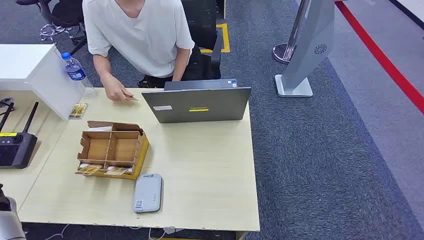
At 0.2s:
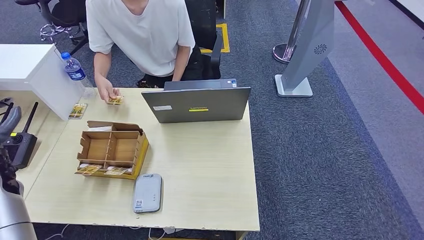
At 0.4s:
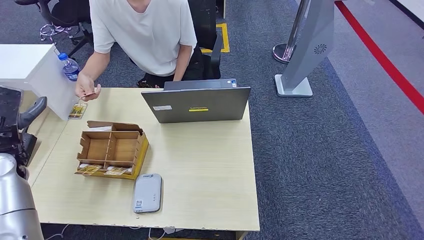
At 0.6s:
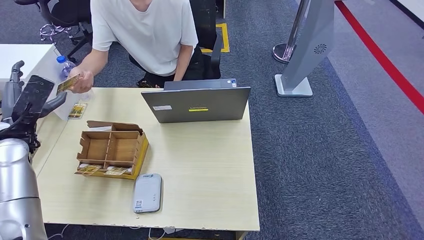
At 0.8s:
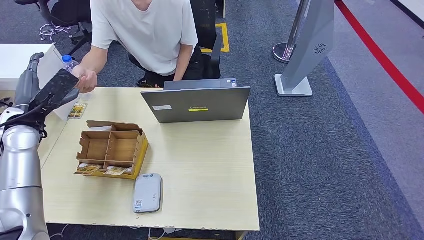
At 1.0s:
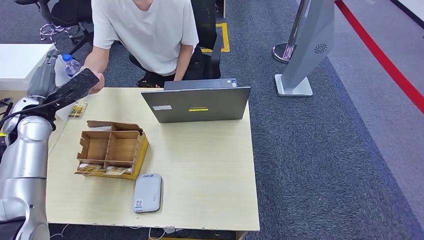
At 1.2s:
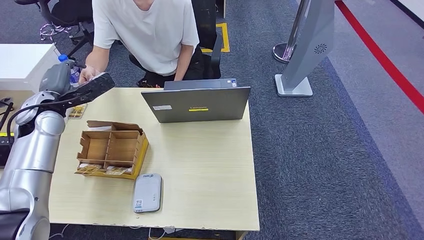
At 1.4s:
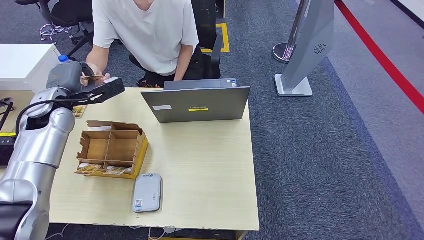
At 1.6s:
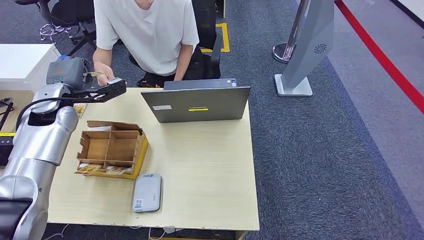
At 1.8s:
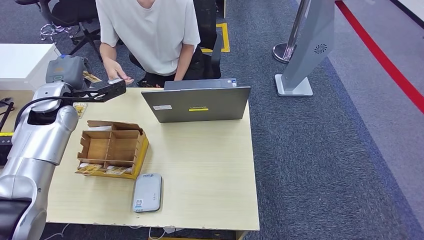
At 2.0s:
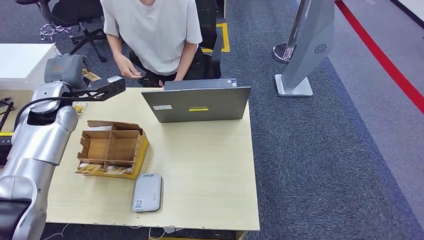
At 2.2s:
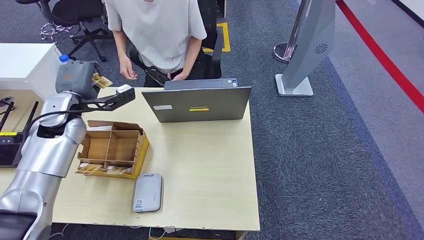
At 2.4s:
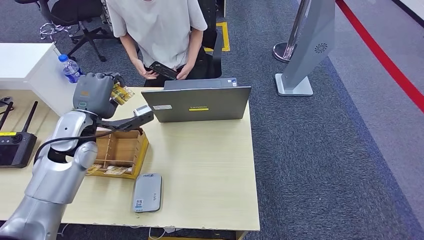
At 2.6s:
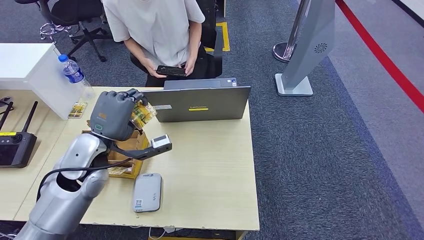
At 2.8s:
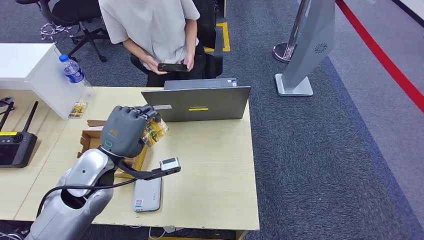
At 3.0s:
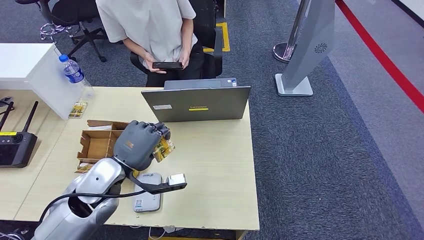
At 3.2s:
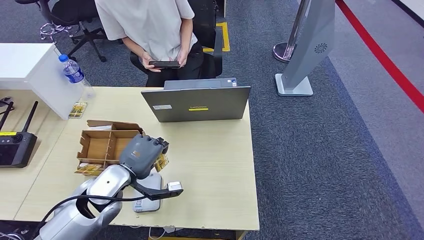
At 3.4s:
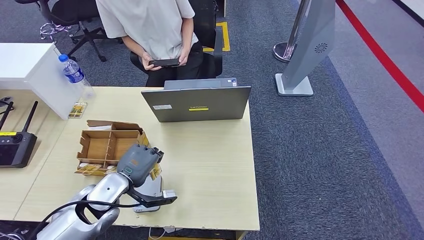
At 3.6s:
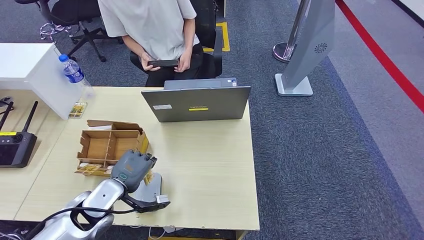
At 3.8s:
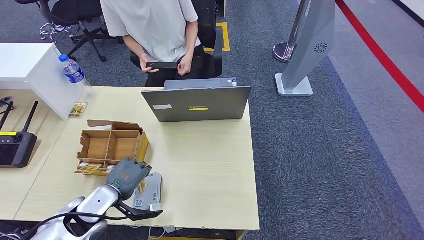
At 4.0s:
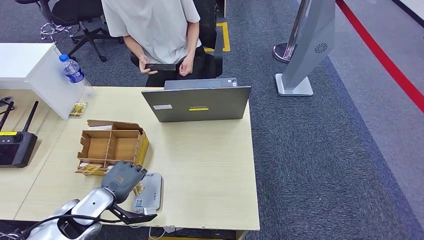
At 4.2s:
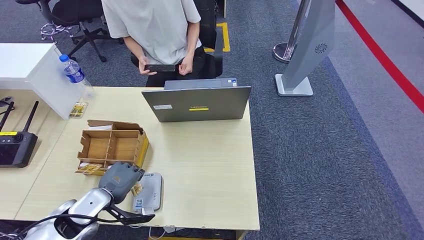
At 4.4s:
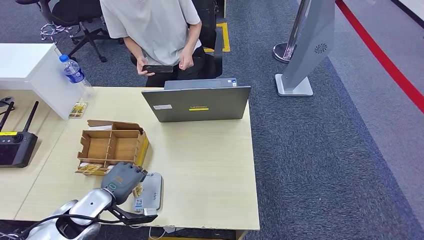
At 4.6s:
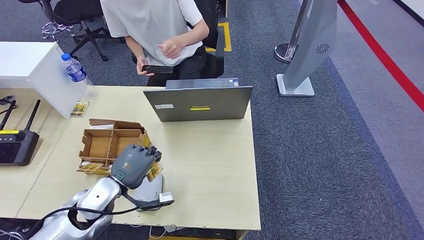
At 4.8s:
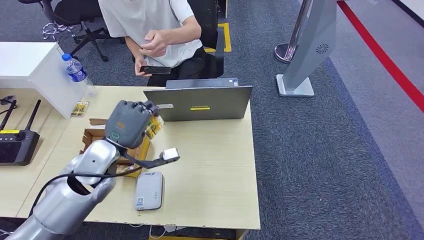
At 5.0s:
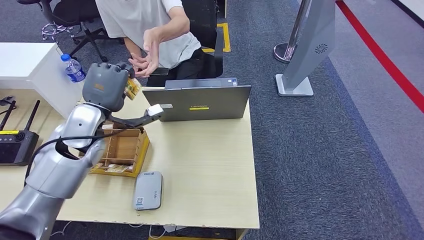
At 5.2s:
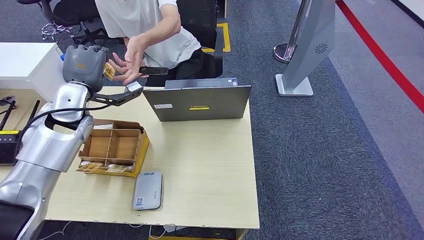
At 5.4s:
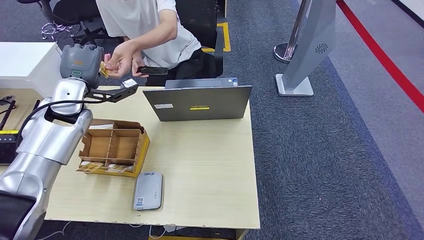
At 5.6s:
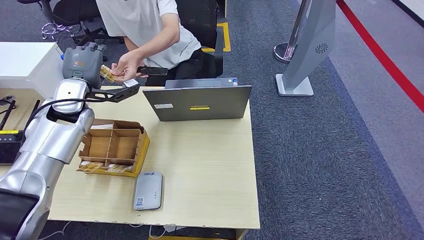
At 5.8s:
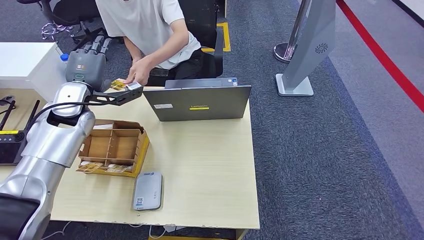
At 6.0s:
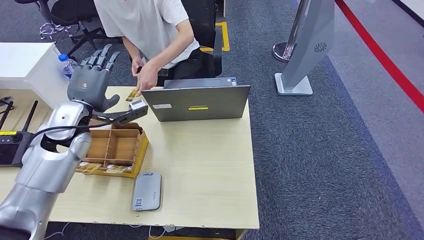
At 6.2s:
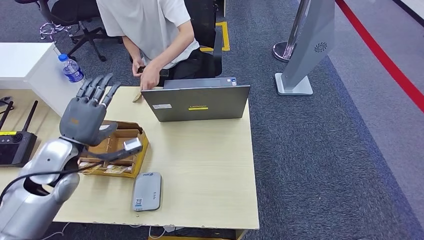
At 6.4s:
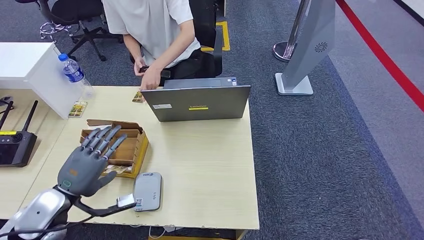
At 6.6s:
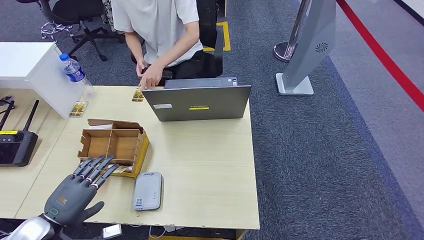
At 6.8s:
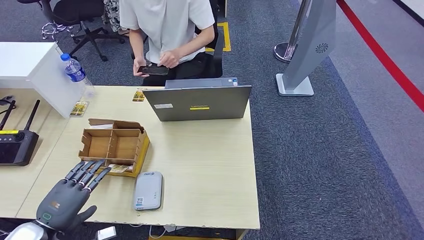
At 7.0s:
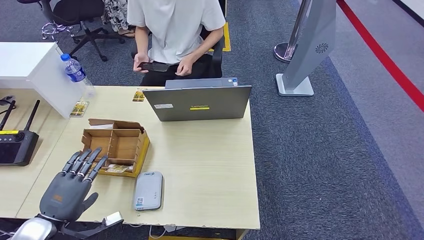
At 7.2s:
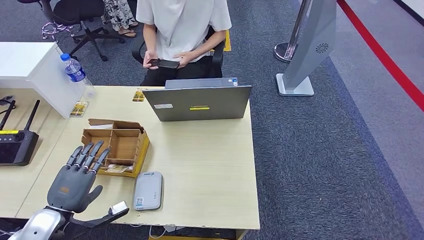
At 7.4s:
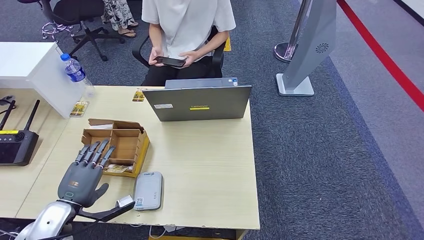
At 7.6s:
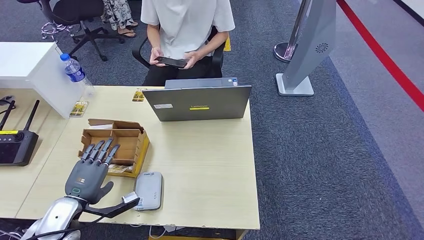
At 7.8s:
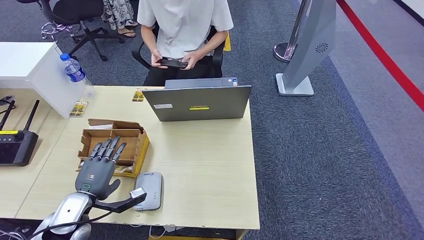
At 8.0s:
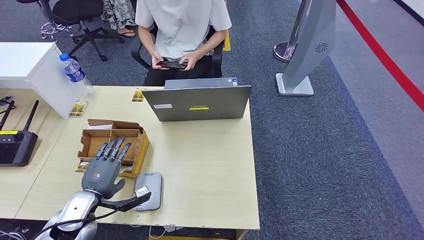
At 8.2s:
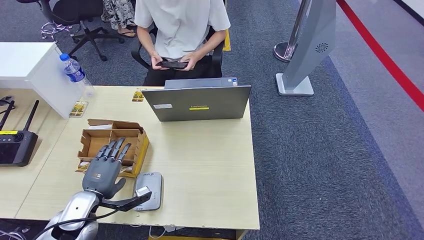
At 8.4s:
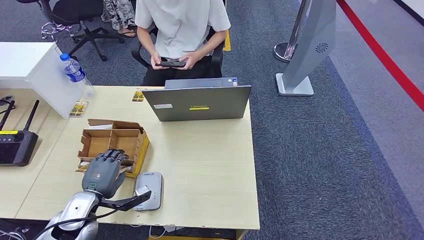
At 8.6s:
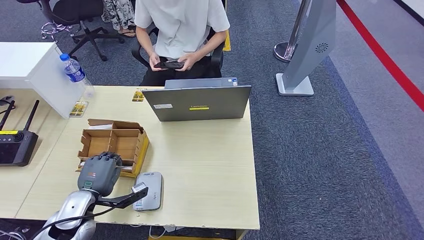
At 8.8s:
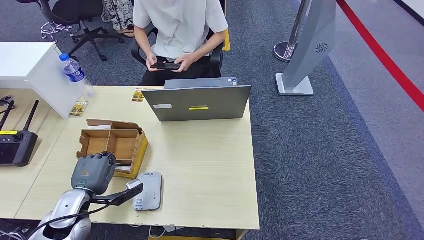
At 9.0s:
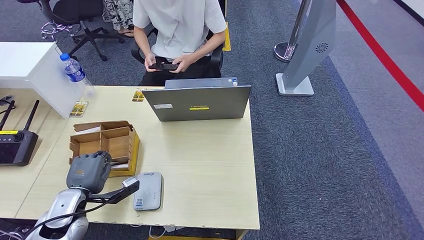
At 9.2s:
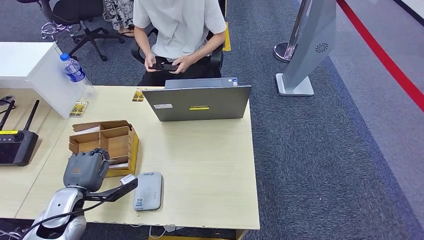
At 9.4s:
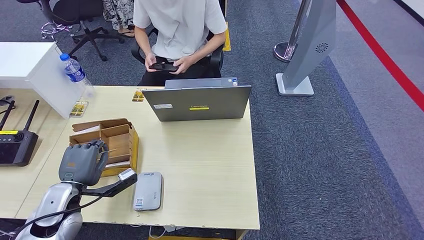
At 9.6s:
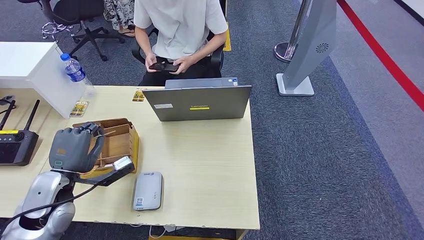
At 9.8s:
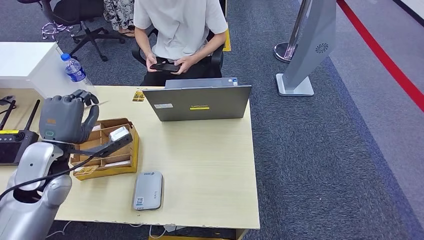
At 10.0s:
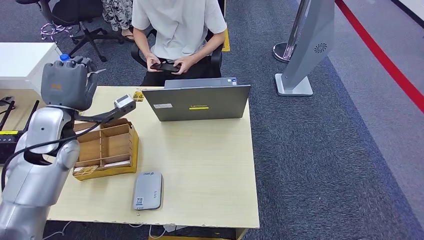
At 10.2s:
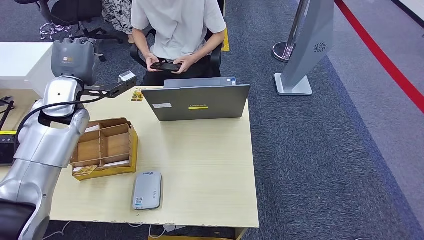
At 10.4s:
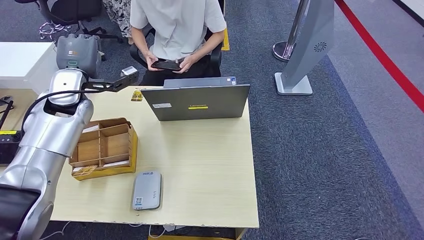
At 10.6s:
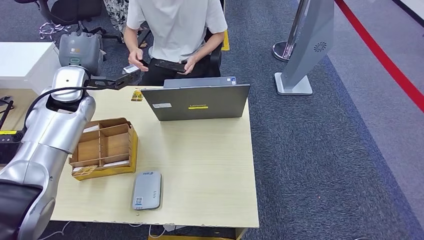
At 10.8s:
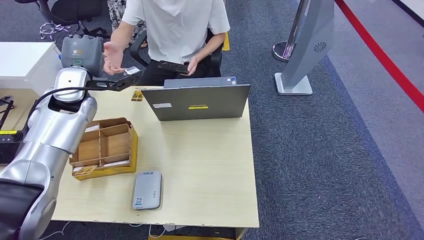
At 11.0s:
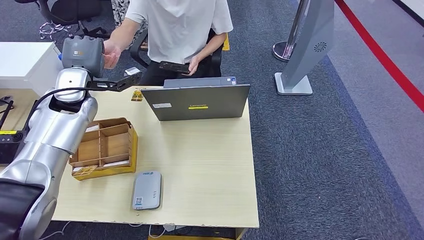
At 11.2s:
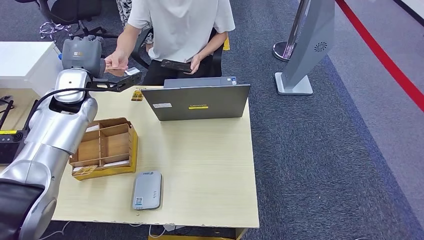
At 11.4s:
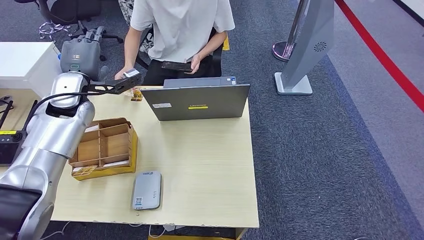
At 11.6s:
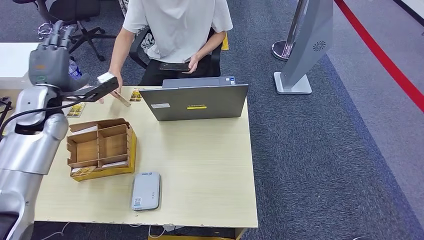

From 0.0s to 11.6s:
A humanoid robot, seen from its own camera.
Step, from 0.0s to 2.0s: Take the ID card from the person's hand.
Step, from 3.2s to 4.4s: Place the ID card on the card reader.
Step, from 5.0s to 6.0s: Hand the ID card to the person.
Step, from 6.6s to 9.4s: Pick up the room key from the key card box.
Step, from 9.8s to 11.6s: Hand the room key to the person.
From 2.8s to 4.4s: The left hand goes about 15 cm downward and to the left.
From 4.4s to 5.8s: The left hand moves forward and upward, about 25 cm.
From 5.8s to 7.2s: The left hand heads backward and downward, covering approximately 30 cm.
From 7.2s to 8.8s: The left hand shifts roughly 5 cm forward.
From 8.8s to 10.2s: The left hand shifts roughly 30 cm upward and forward.
From 10.2s to 11.6s: The left hand travels to the left by some 5 cm.

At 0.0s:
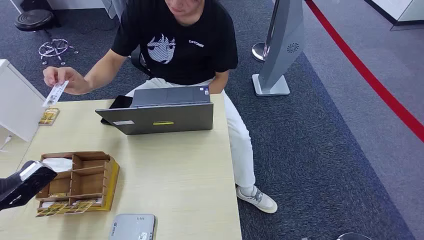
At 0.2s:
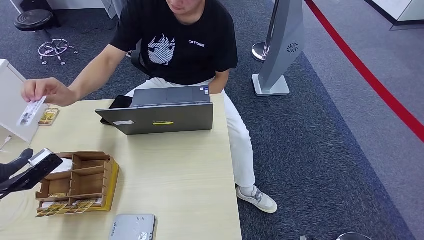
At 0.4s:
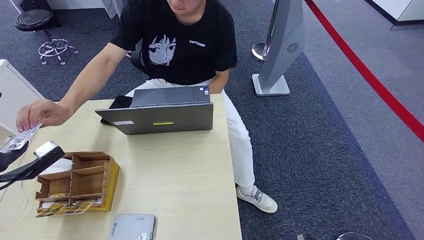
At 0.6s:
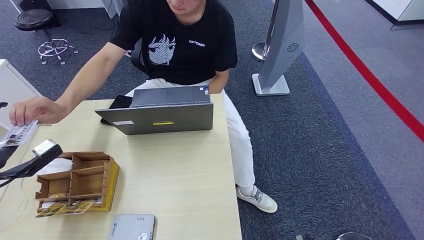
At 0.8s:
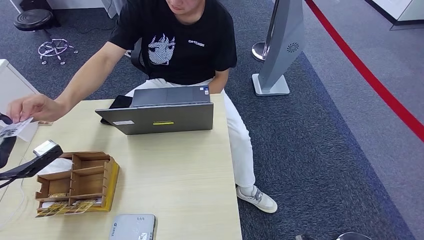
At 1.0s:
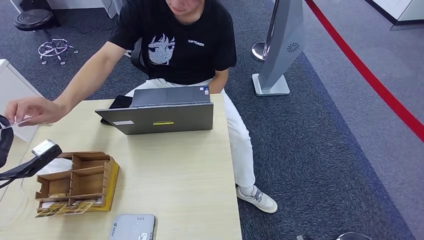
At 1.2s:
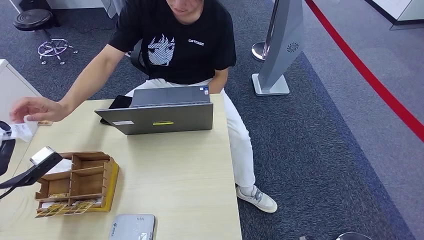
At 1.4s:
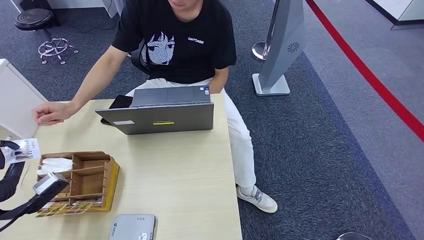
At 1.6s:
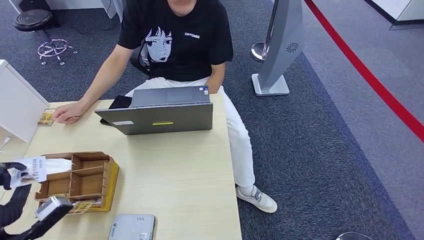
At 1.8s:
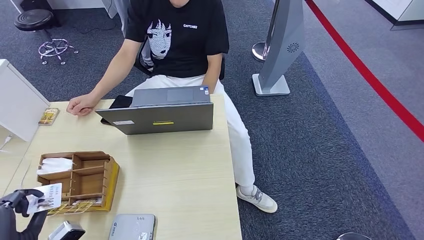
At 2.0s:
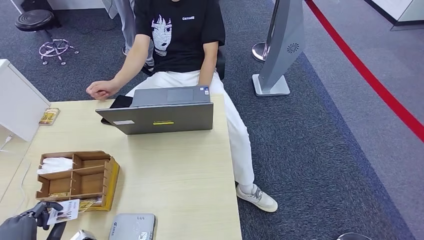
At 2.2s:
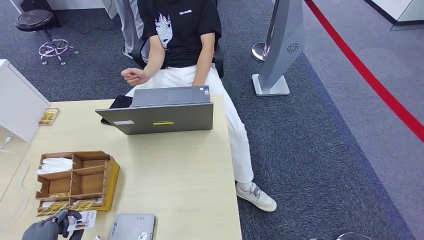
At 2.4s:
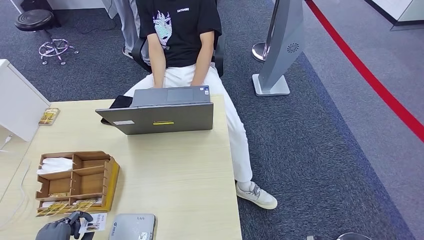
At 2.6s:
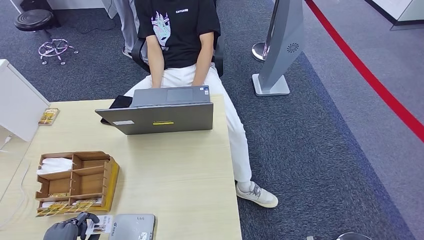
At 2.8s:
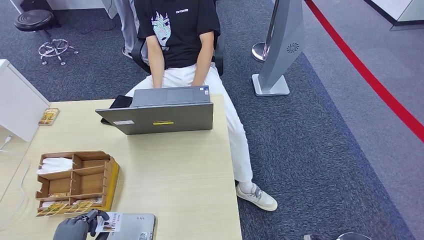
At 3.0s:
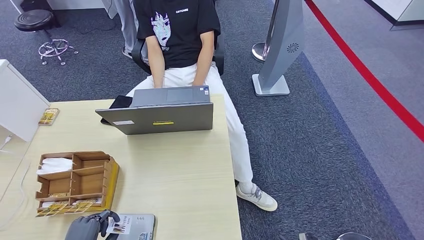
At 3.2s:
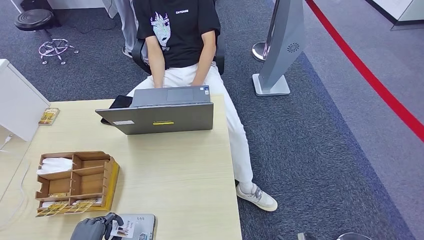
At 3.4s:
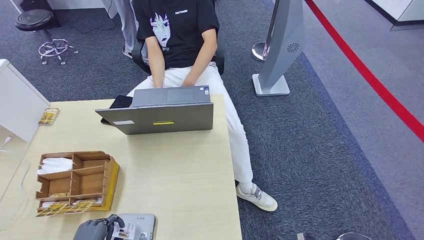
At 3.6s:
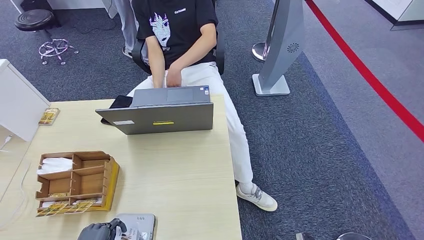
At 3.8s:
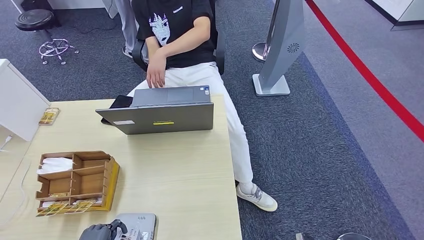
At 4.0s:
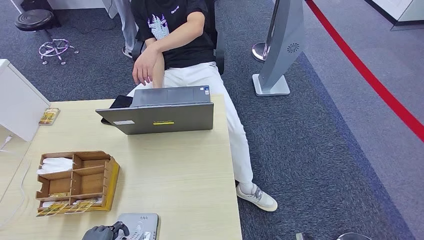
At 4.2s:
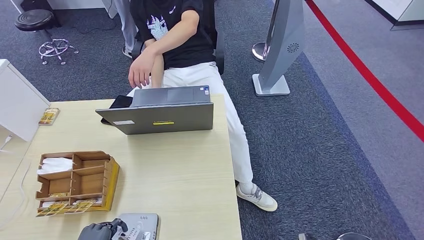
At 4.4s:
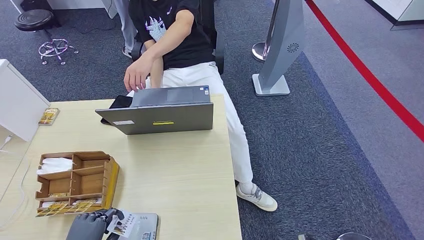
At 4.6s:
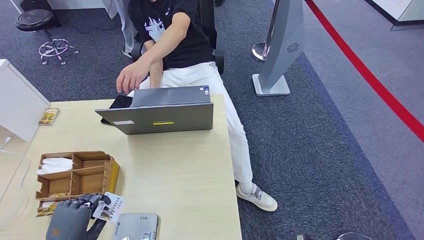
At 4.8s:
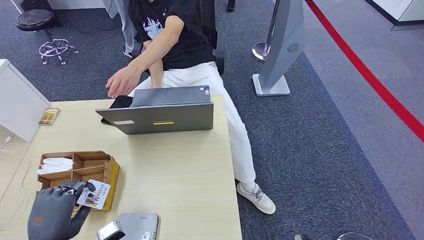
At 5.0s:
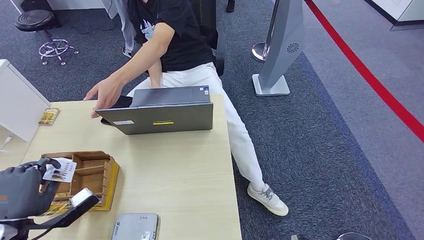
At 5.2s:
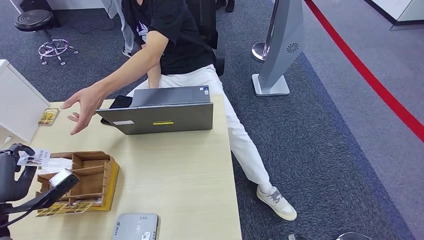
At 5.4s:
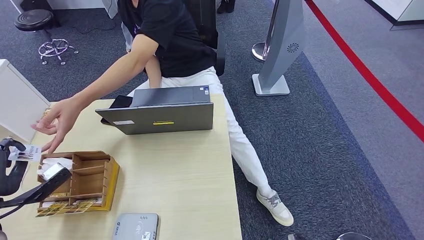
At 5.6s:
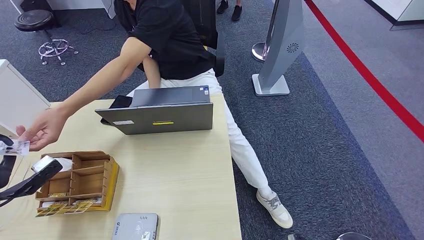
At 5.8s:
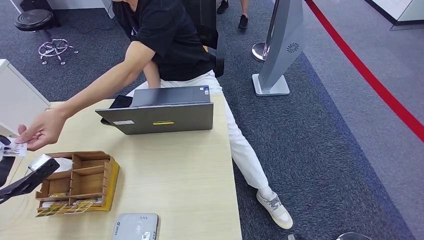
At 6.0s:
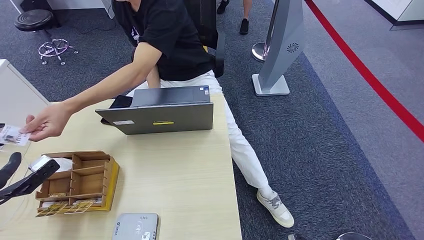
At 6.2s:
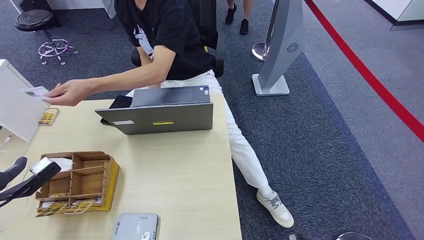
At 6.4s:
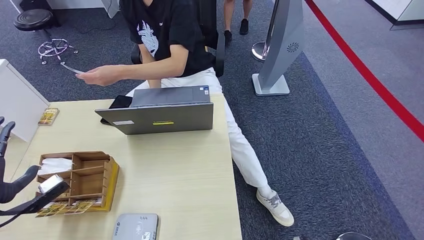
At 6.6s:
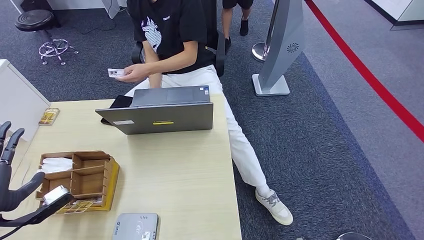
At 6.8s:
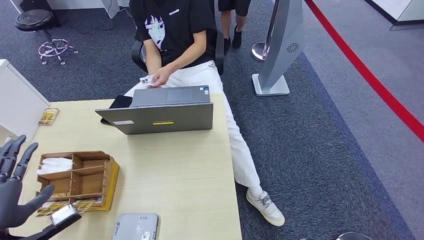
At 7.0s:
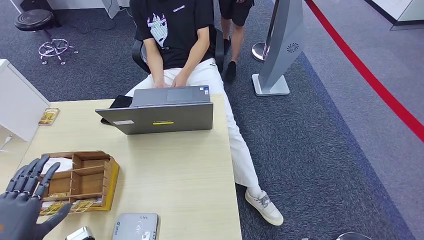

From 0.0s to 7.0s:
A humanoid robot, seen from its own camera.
Step, from 0.0s to 2.2s: Take the ID card from the person's hand.
Step, from 2.4s to 5.4s: Place the ID card on the card reader.
From 1.4s to 2.8s: The left hand is displaced backward, downward and to the right by approximately 20 cm.
From 2.8s to 4.2s: The hands stay close to where they were, moving slightly.
From 4.2s to 5.6s: The left hand travels forward, upward and to the left by roughly 25 cm.
From 5.6s to 7.0s: The left hand moves backward, some 10 cm.
